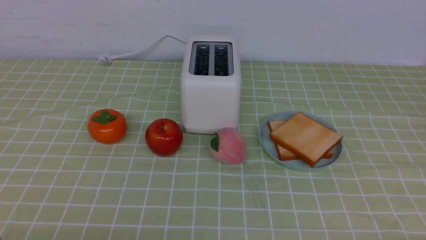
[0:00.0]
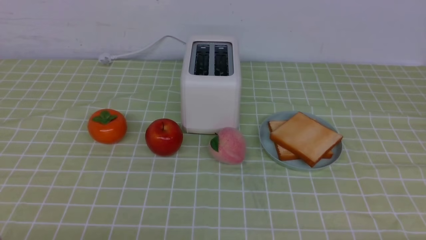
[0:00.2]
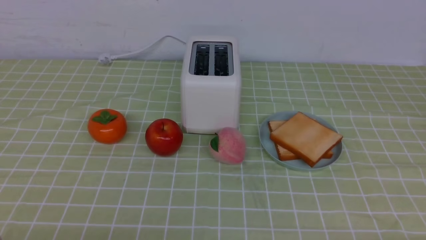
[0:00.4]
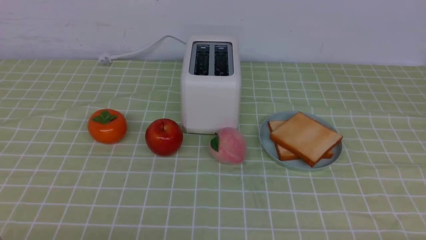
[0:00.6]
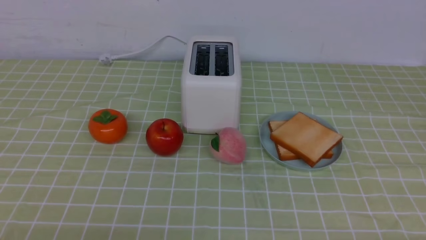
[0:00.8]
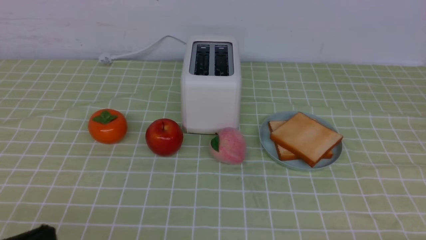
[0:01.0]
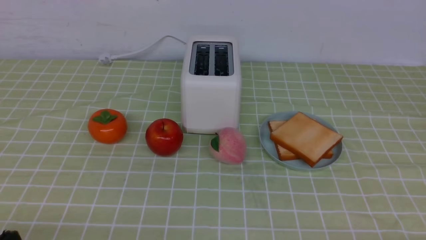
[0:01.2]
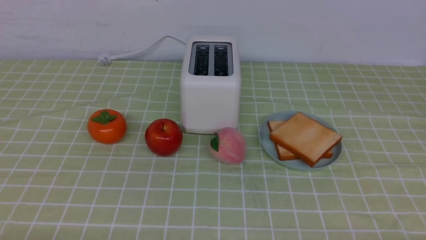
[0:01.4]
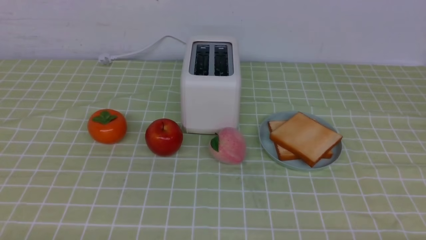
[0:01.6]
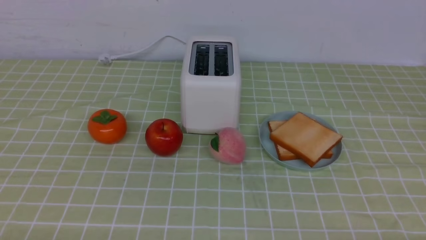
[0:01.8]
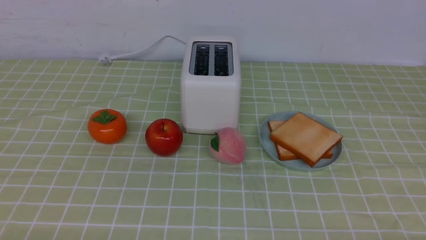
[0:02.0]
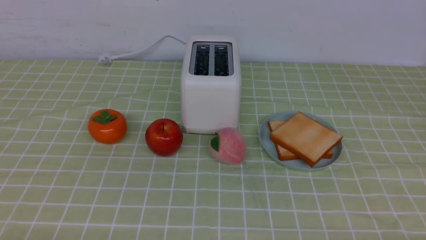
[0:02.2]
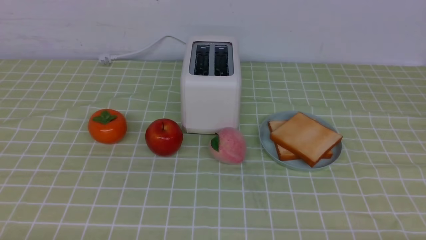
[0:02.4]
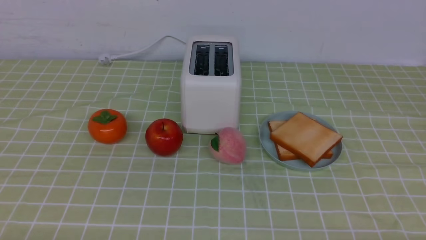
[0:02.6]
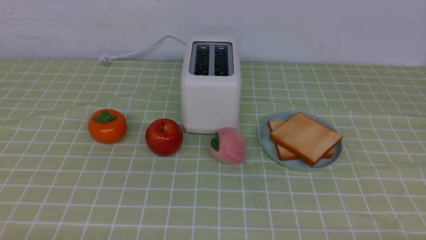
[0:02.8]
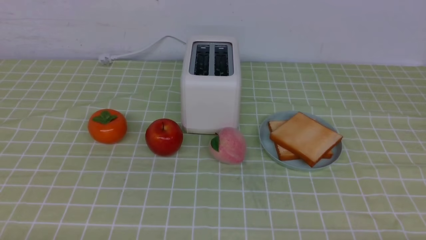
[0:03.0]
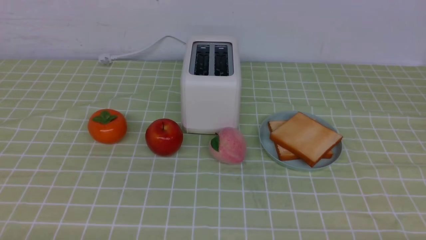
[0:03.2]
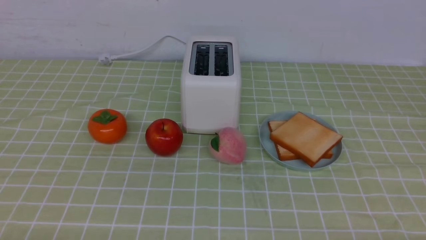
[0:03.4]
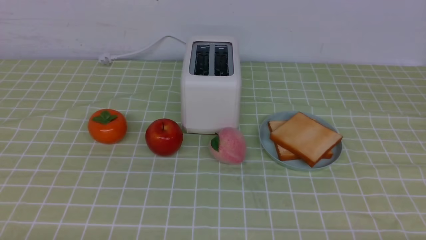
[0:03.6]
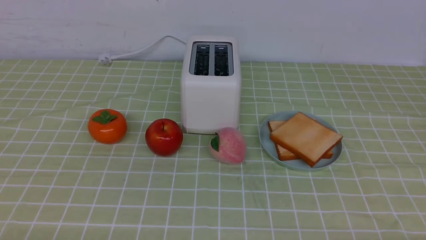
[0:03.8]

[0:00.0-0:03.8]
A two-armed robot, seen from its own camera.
Task of the whole recording: take toasted bread from bread machine on green coffee tablecloth place on plate.
0:02.6 to 0:03.8: Both grippers stay about where they are.

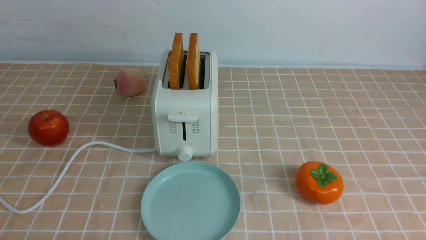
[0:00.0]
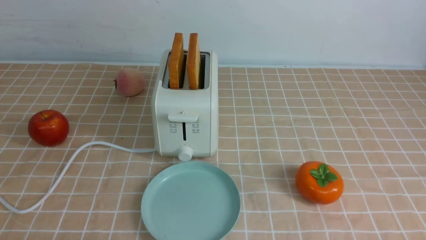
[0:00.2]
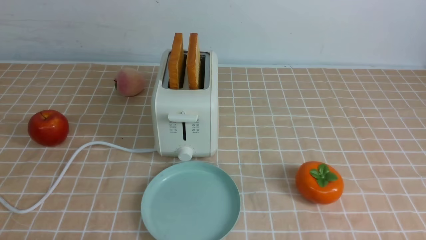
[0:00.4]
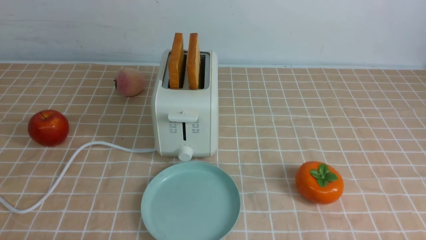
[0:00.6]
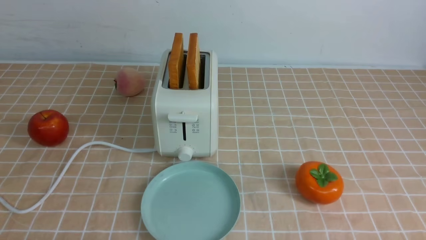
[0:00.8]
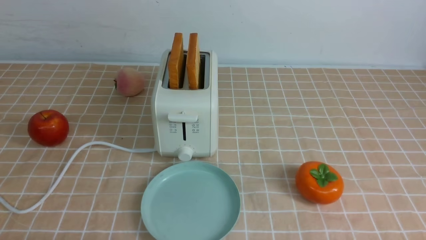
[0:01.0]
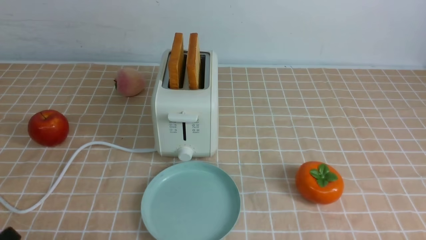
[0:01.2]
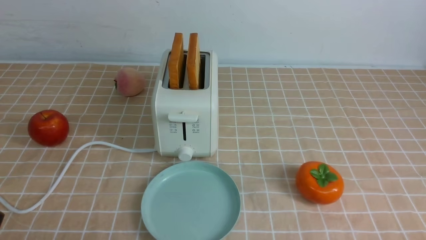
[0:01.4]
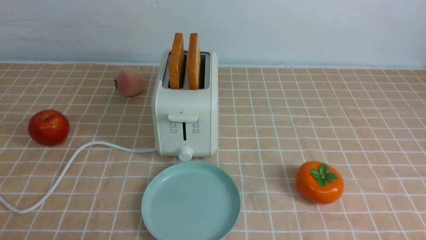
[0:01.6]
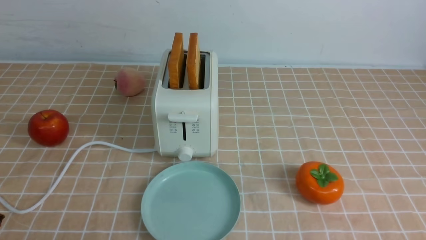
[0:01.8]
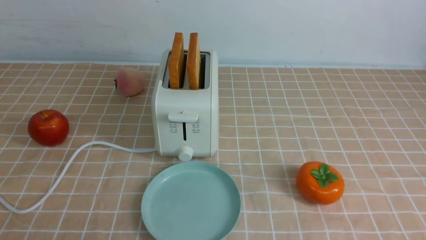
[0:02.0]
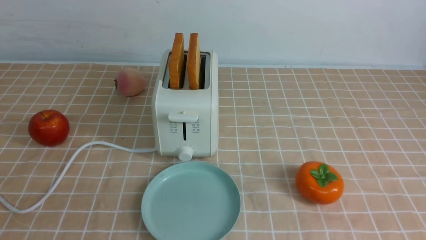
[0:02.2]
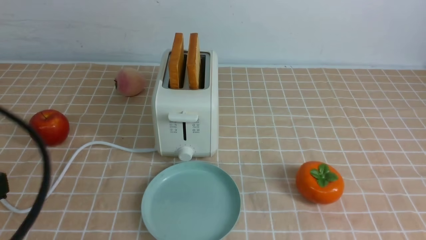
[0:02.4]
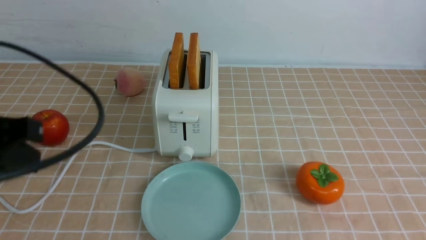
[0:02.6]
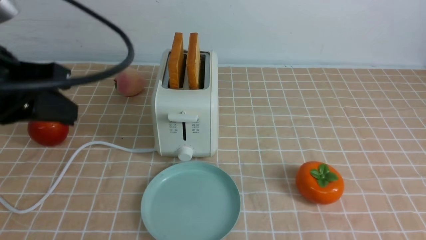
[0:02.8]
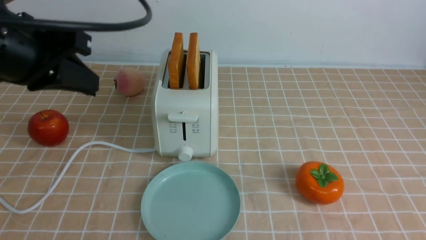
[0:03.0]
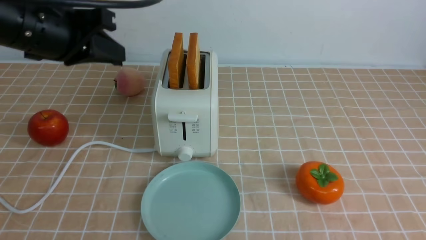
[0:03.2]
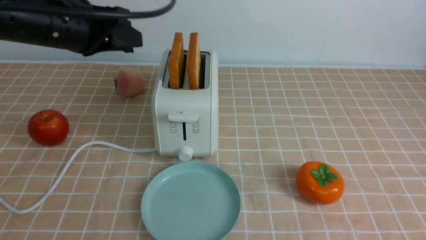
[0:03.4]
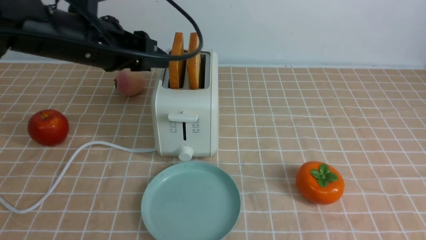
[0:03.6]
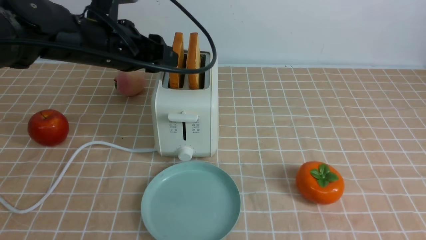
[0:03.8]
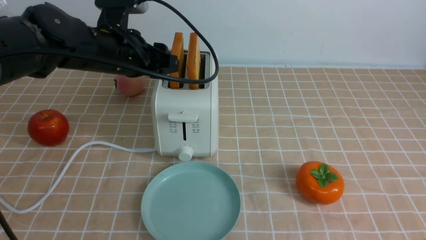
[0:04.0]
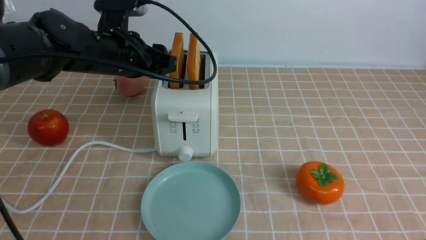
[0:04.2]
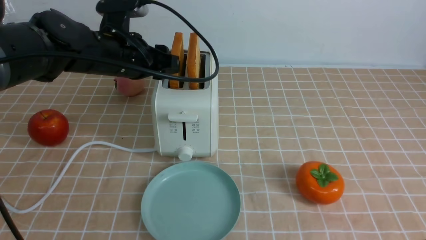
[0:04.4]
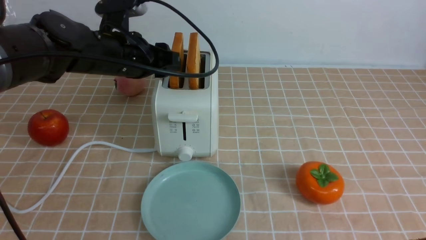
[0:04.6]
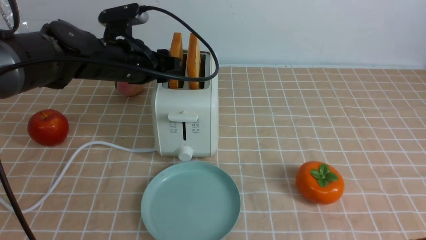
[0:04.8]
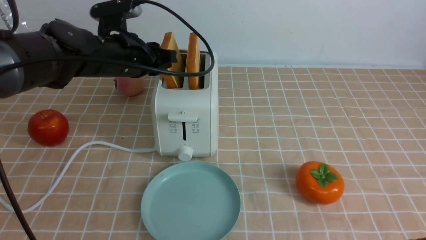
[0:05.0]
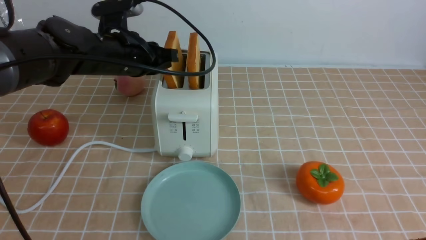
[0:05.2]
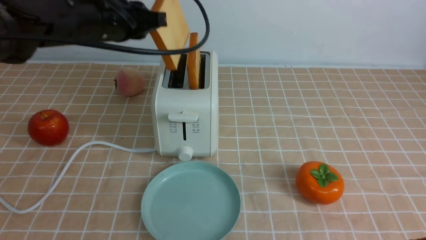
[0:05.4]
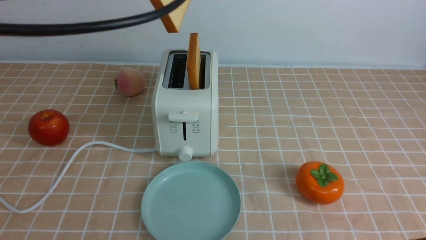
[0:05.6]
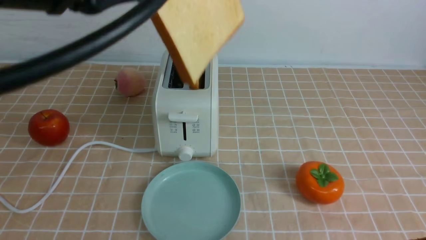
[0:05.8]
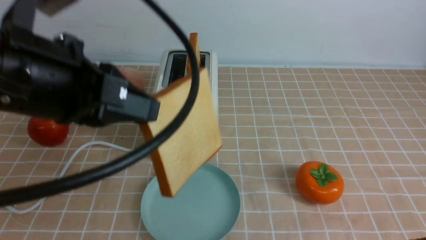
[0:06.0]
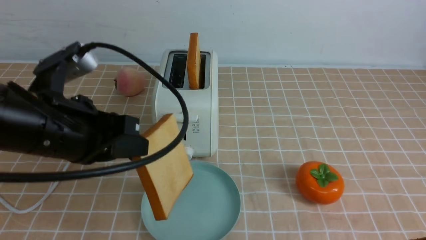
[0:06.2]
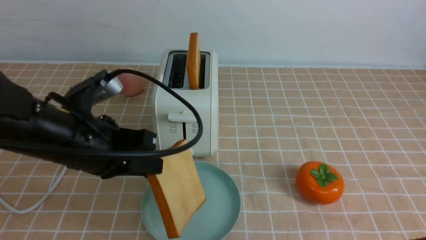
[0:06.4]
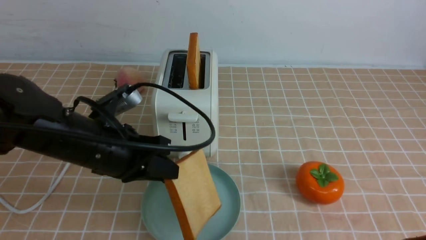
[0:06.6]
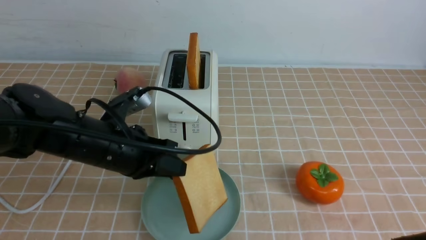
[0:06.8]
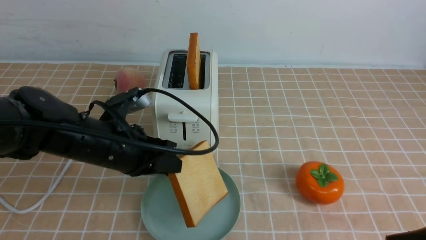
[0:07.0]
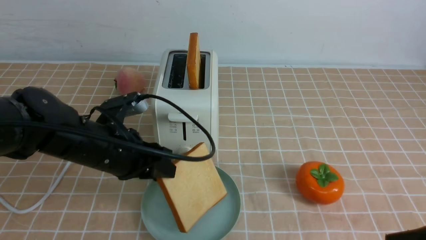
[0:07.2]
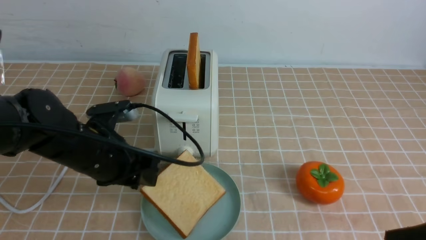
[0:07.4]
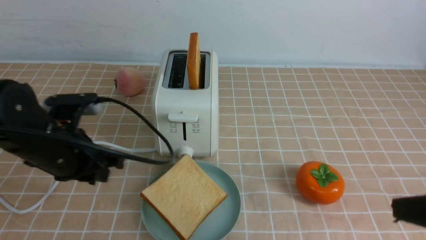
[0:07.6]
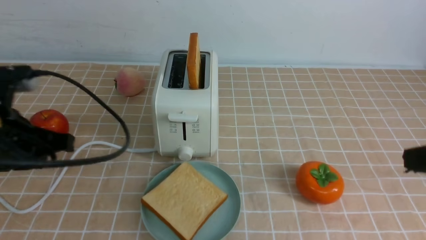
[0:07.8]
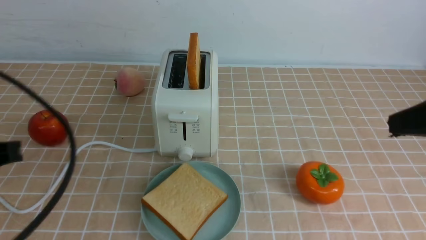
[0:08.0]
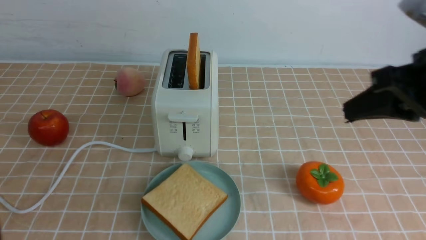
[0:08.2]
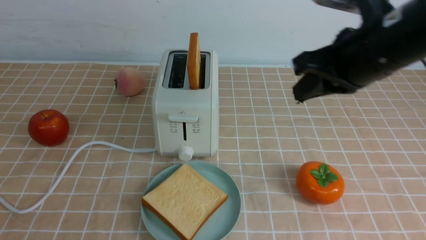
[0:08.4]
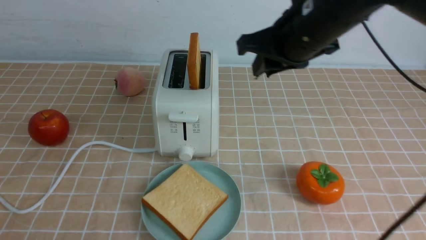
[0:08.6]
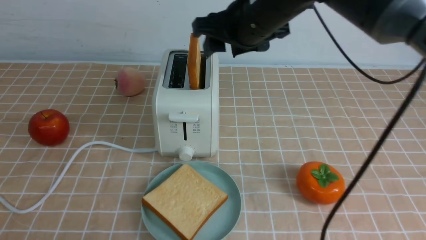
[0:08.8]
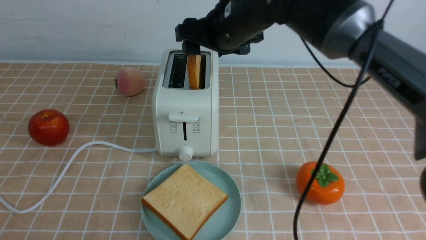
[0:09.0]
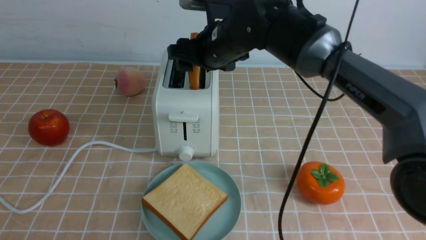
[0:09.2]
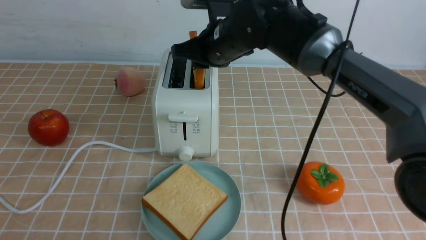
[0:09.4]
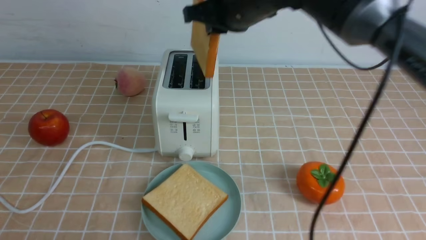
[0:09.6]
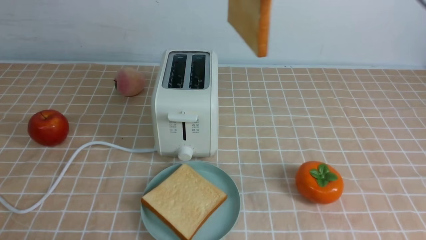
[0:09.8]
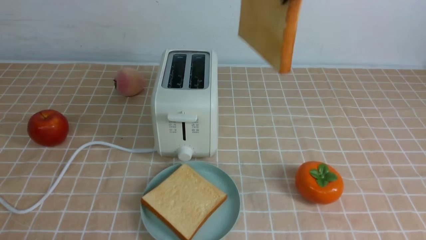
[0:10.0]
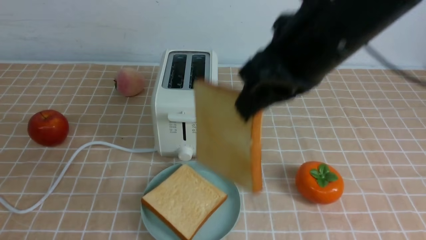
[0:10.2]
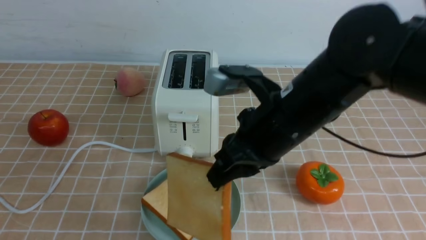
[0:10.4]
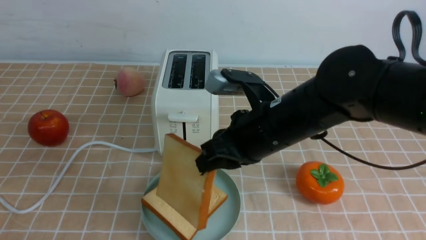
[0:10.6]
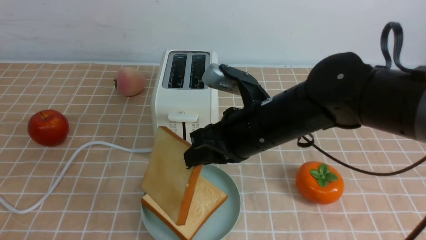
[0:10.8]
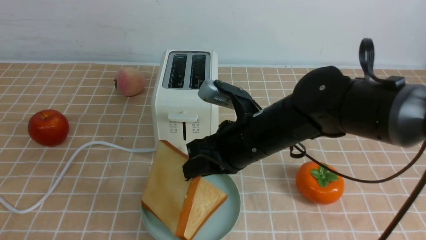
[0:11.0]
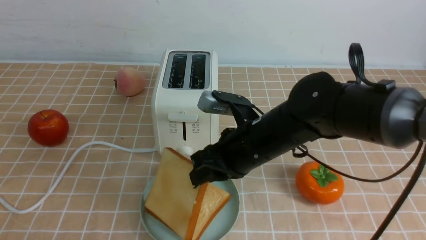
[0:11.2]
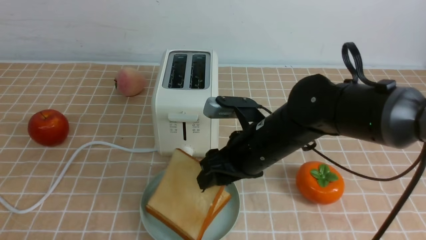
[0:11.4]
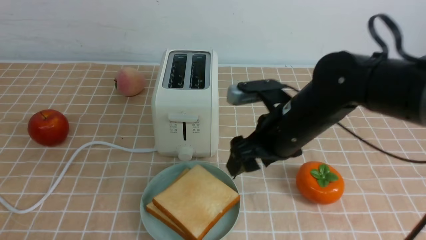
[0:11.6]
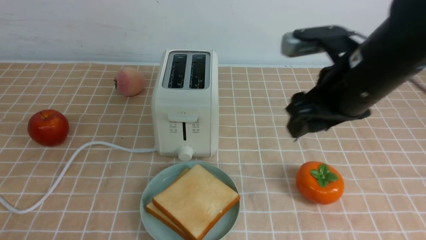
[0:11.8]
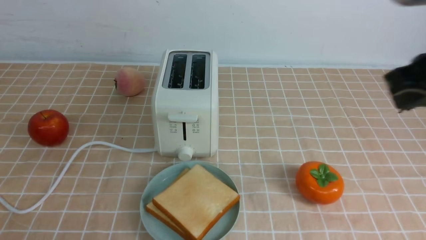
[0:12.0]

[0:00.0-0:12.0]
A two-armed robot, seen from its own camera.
Task of the whole recording: take toasted bread from bread machine on light coffee tablecloth place on plate.
Step, 0:00.0 to 0:05.4: use the left arm to take out a slice of bread.
Step, 0:05.6 to 0:07.6: use the left arm to put a slice of bread into the empty plate.
Step, 0:07.8 to 0:09.4: use the right arm to take out a slice of bread.
Step, 0:09.6 to 0:11.6: use the right arm to put a slice of bread into the plate.
0:01.6 to 0:03.0: The left gripper goes roughly 25 cm upward and forward, and closes up.
0:03.0 to 0:04.4: The left gripper is displaced forward and downward by approximately 20 cm, and opens.
0:04.4 to 0:06.0: The left gripper travels backward and upward by some 20 cm, and closes its fingers.
0:06.0 to 0:07.6: The left gripper is displaced downward by roughly 15 cm.
0:07.6 to 0:09.0: The left gripper moves backward, approximately 30 cm, and closes up. Meanwhile the right gripper moves forward and to the left, some 35 cm, and opens its fingers.
0:09.0 to 0:10.4: The right gripper is displaced backward by about 15 cm, and closes its fingers.
0:10.4 to 0:12.0: The right gripper moves to the right, roughly 10 cm, moves about 10 cm downward and comes back, and opens, then closes once more.

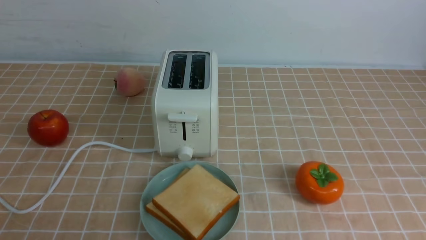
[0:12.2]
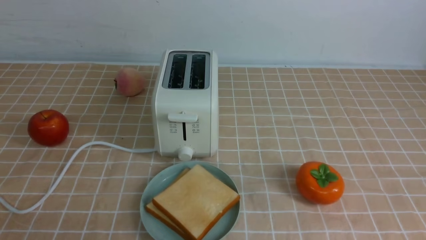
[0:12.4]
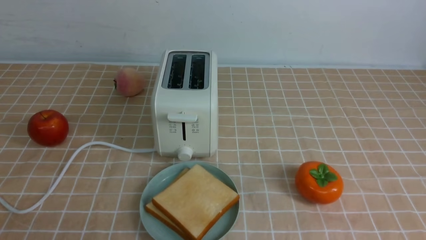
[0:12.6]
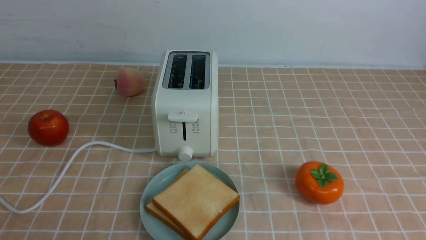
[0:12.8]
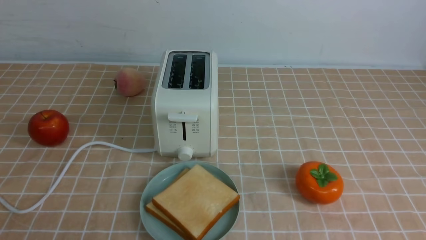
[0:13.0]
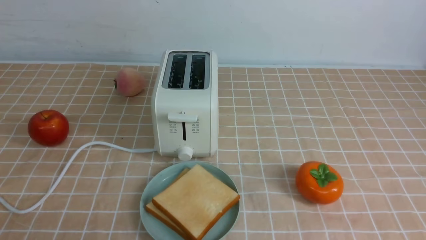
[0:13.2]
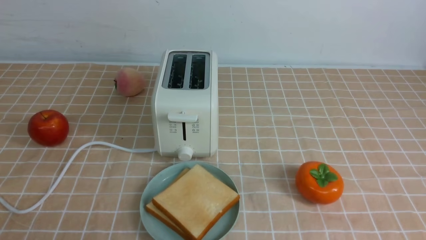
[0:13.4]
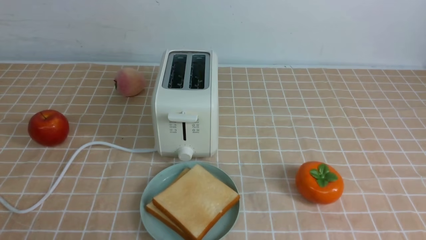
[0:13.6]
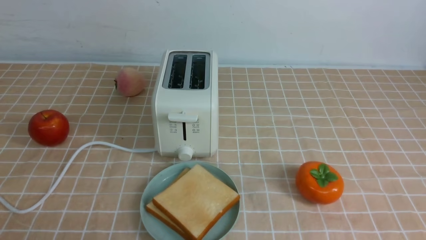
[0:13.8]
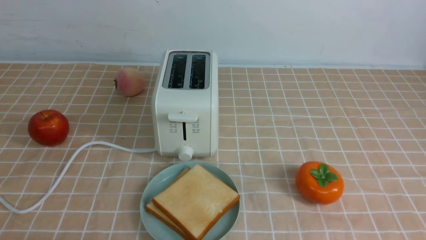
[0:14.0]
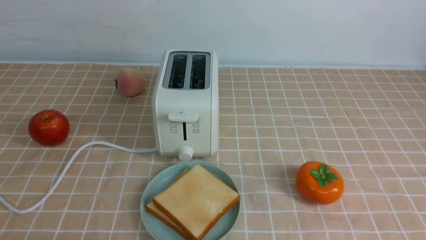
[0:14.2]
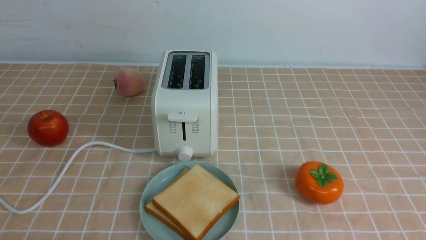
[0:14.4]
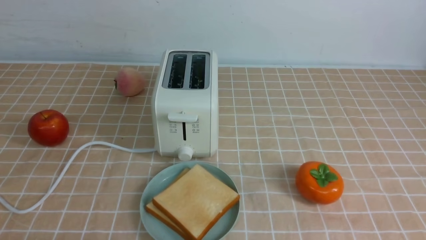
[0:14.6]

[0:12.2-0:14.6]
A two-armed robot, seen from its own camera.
Task of the whole recording: take toasted bread from bread machine on light coffee tablecloth place on plate.
0:12.2 to 0:13.4: The right gripper goes some 20 cm downward, backward and to the right.
